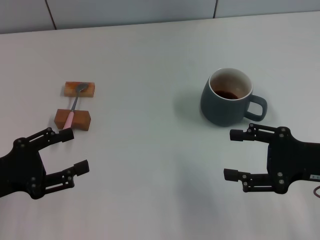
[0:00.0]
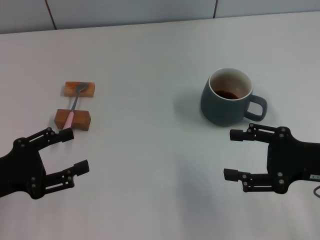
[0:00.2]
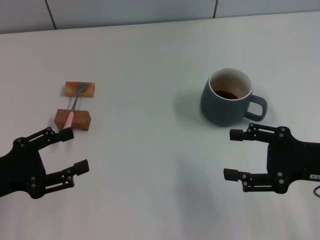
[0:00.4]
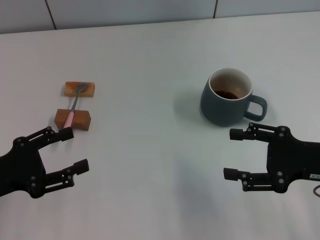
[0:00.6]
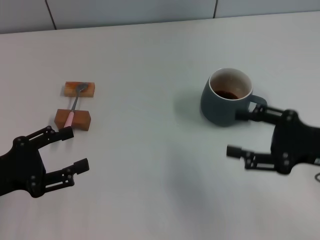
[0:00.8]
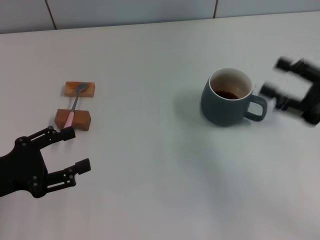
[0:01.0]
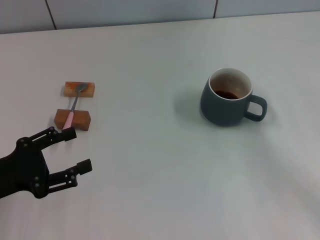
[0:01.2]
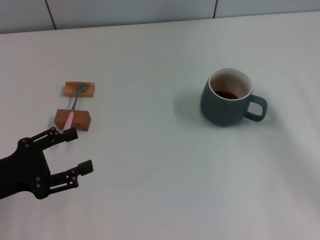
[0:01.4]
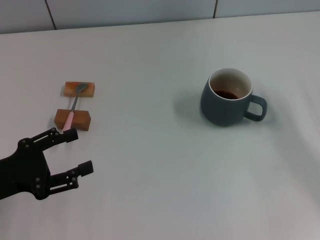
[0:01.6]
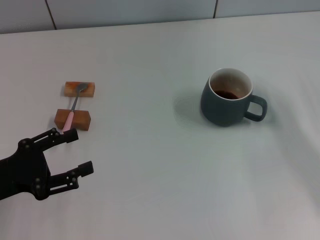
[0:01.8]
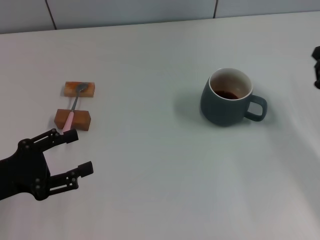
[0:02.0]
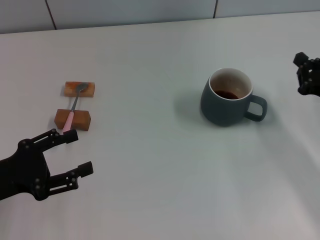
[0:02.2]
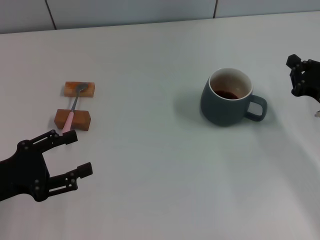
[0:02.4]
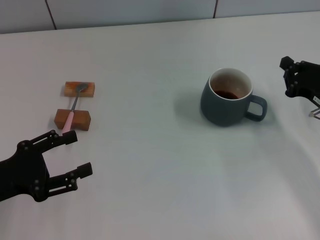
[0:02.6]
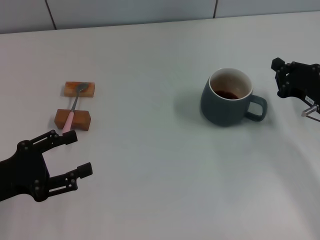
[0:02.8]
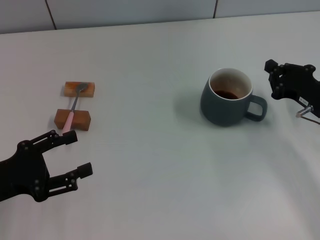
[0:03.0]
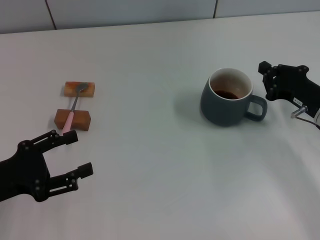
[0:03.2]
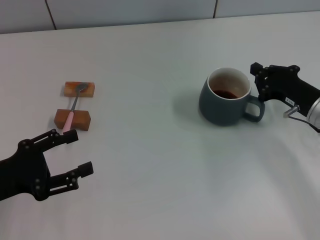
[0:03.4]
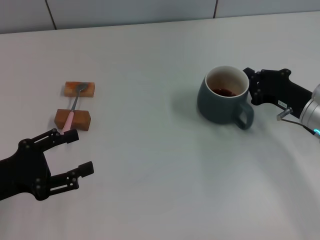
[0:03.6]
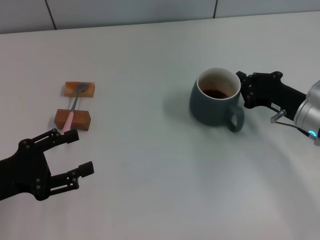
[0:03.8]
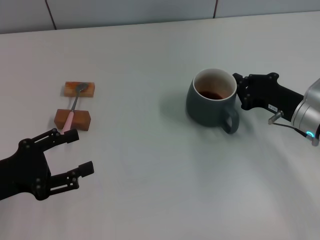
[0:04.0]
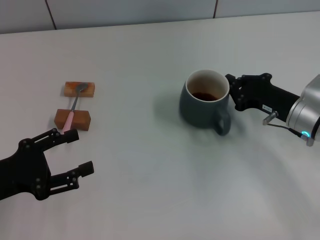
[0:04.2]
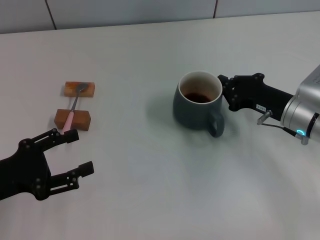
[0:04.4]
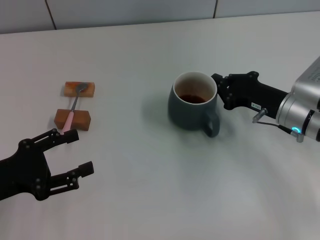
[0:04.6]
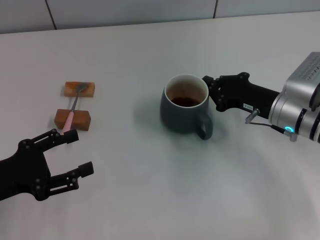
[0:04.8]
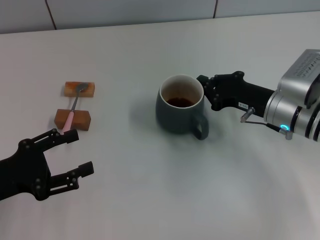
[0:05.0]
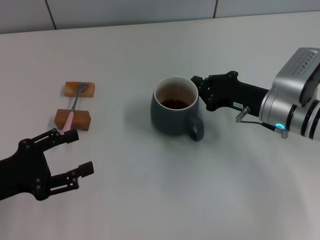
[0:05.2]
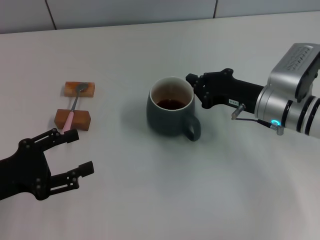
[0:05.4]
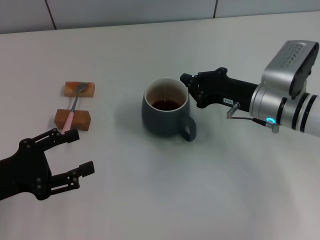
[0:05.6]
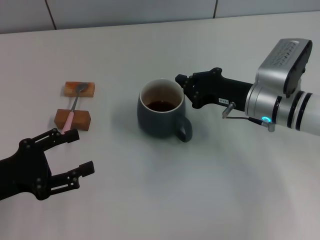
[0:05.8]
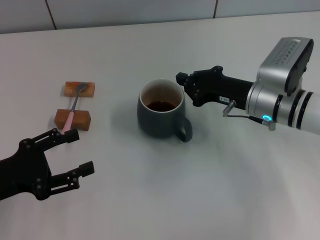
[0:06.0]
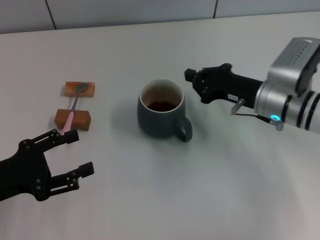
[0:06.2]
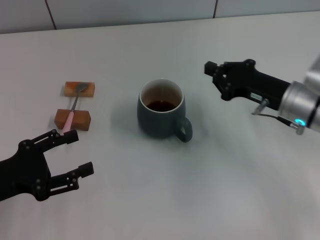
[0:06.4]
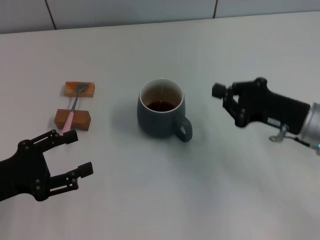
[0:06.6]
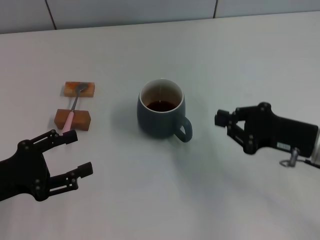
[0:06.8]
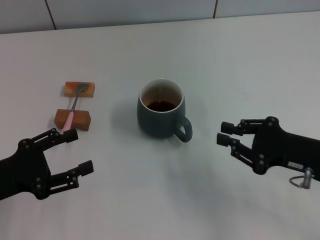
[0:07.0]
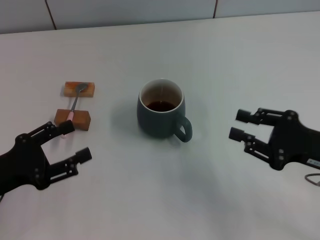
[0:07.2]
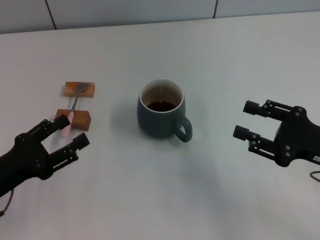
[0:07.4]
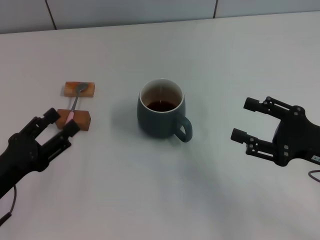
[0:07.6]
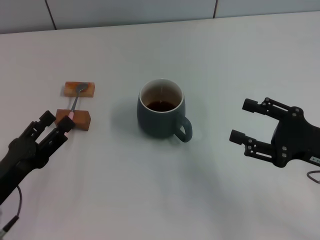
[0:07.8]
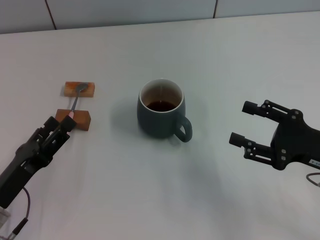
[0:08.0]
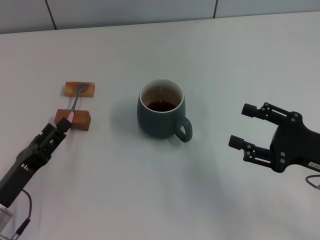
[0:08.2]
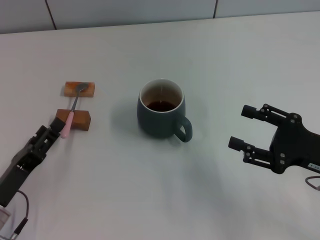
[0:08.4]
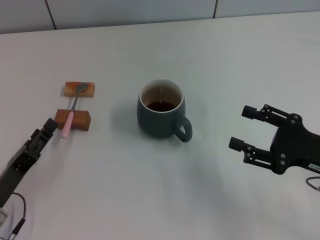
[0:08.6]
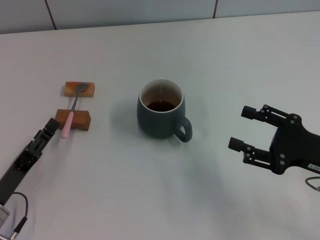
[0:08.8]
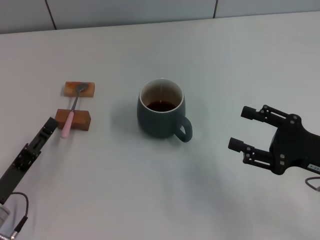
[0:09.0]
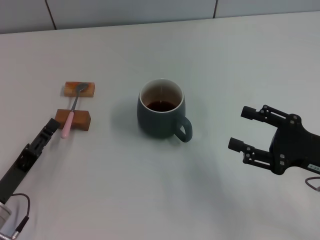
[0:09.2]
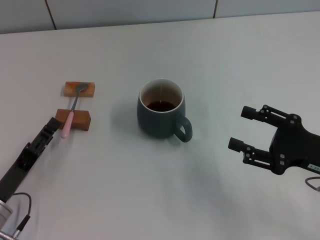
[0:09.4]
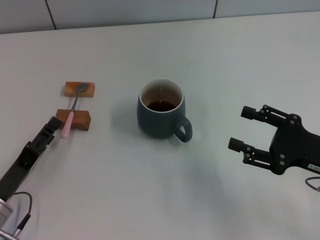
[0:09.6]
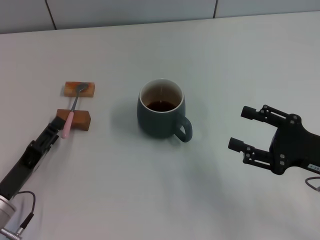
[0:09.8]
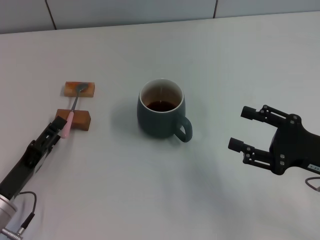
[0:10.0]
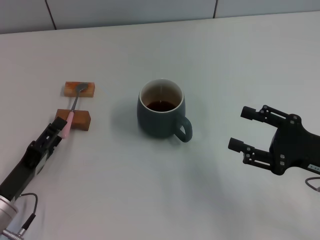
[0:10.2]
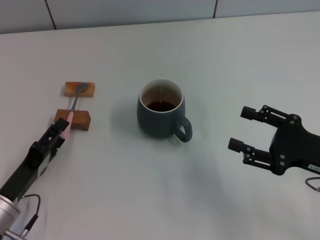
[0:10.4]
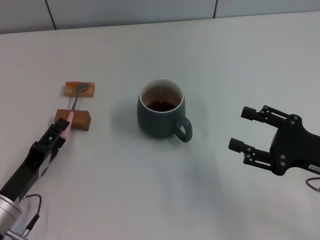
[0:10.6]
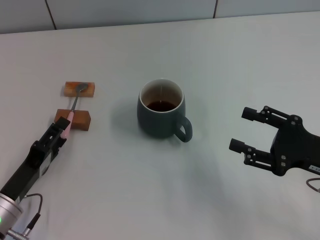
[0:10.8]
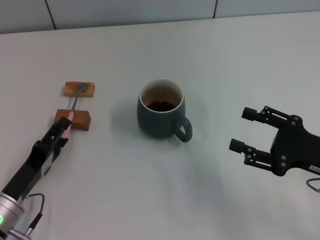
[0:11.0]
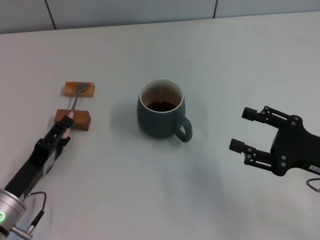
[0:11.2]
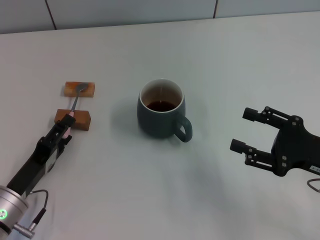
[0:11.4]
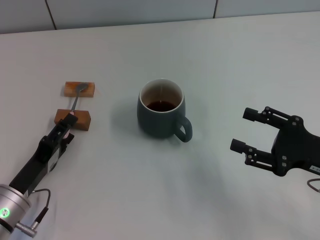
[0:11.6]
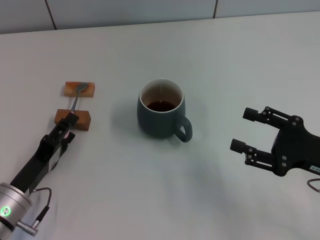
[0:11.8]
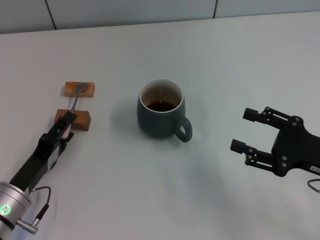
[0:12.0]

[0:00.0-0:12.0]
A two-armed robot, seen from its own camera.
Task of the whole recording: Move the grey cup to the center, lift the pink spoon, stir it three times in the cup, and put the spoon into the cup.
Step, 0:00.0 to 0:06.2: Move the cup with coffee to the center of view with the right gripper.
0:00.0 to 0:01.6: The right gripper travels to the right by some 10 cm.
0:01.6 to 0:03.0: The right gripper heads to the left, covering about 5 cm, and closes.
0:03.0 to 0:04.4: The right gripper shifts about 5 cm to the left.
0:04.4 to 0:06.0: The right gripper heads to the left, covering approximately 5 cm.
0:06.0 to 0:07.6: The right gripper goes about 15 cm backward and to the right, and opens up.
0:09.0 to 0:12.0: The grippers move only a little.

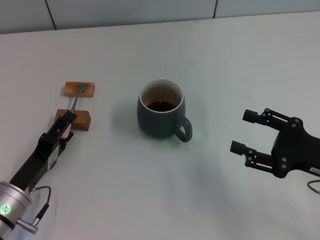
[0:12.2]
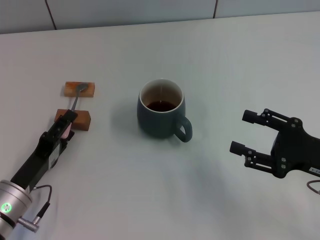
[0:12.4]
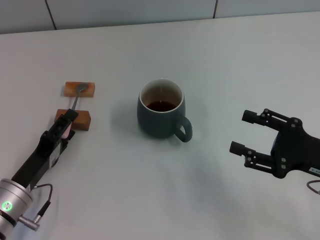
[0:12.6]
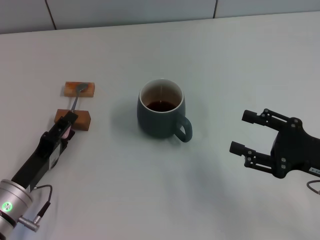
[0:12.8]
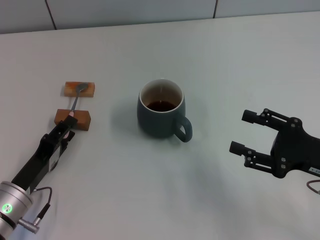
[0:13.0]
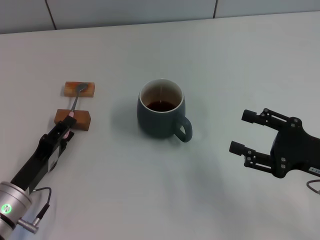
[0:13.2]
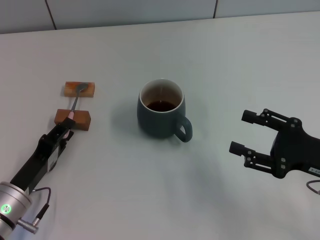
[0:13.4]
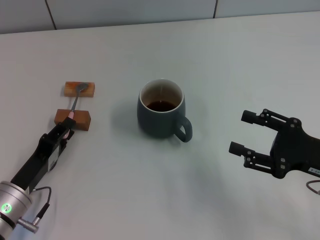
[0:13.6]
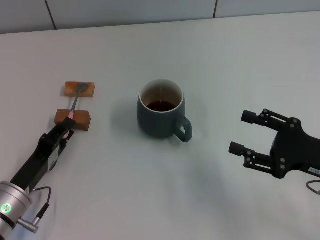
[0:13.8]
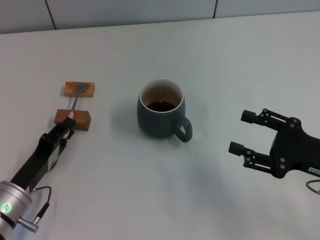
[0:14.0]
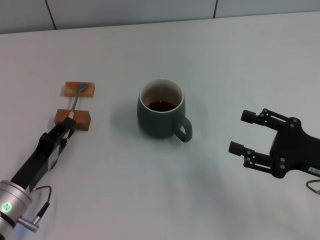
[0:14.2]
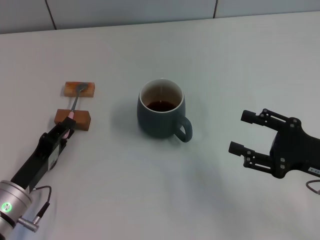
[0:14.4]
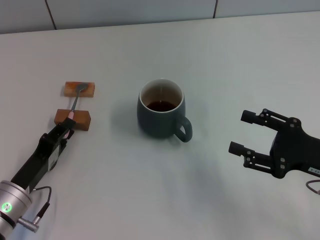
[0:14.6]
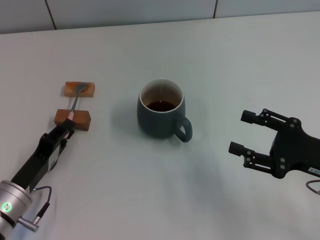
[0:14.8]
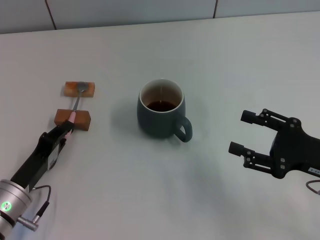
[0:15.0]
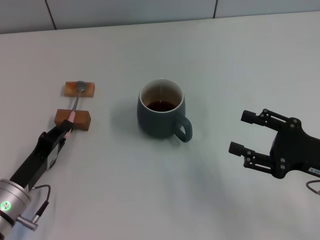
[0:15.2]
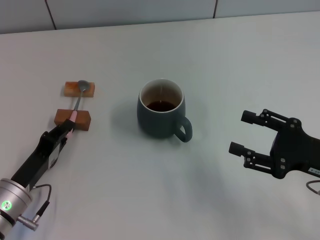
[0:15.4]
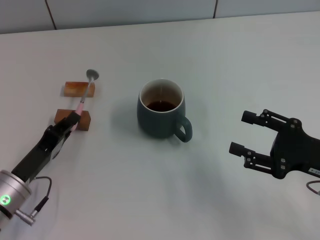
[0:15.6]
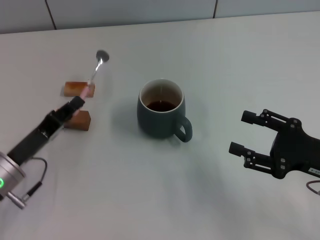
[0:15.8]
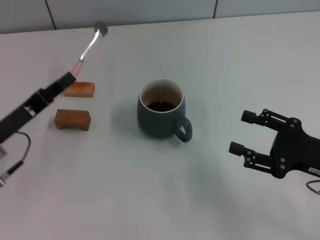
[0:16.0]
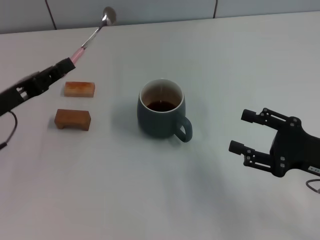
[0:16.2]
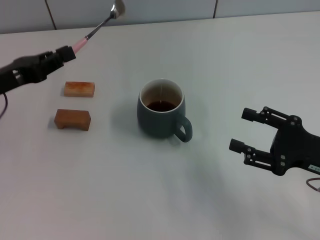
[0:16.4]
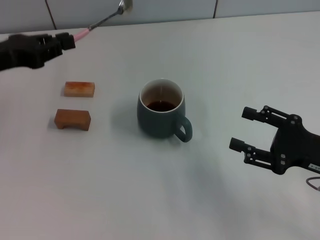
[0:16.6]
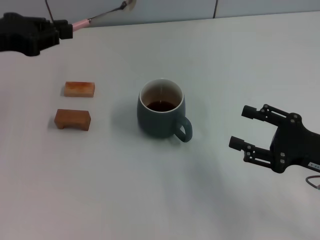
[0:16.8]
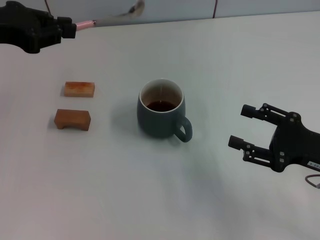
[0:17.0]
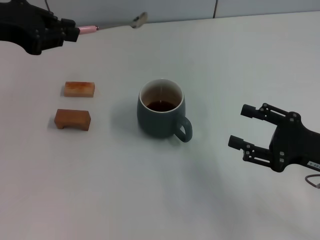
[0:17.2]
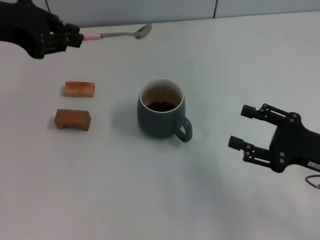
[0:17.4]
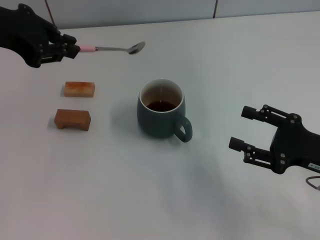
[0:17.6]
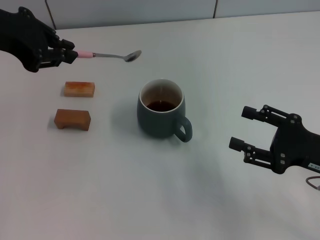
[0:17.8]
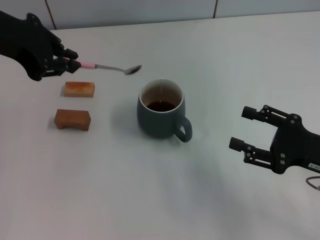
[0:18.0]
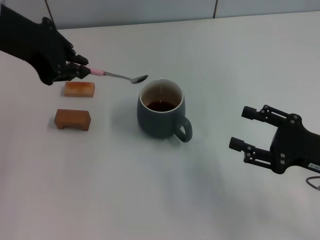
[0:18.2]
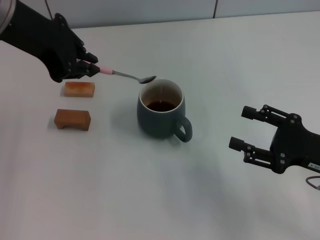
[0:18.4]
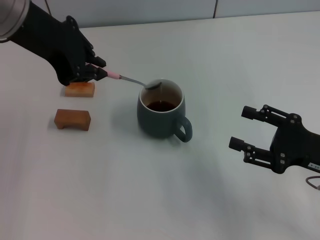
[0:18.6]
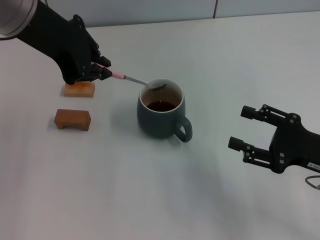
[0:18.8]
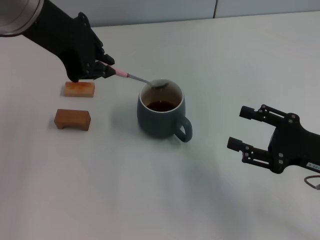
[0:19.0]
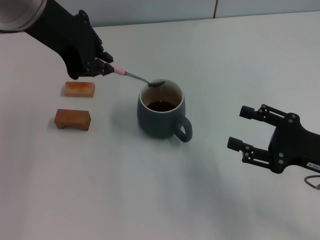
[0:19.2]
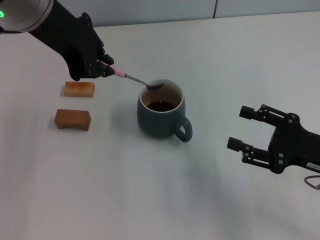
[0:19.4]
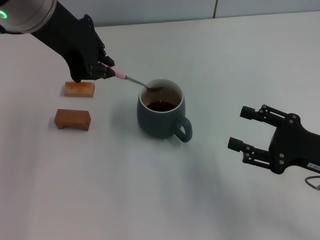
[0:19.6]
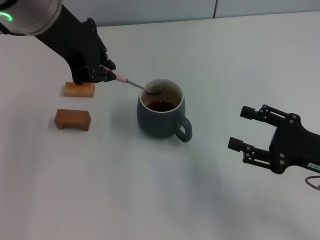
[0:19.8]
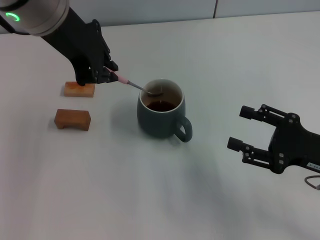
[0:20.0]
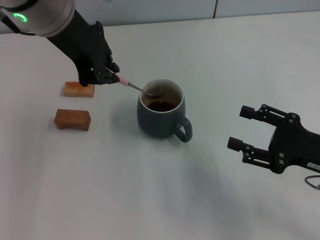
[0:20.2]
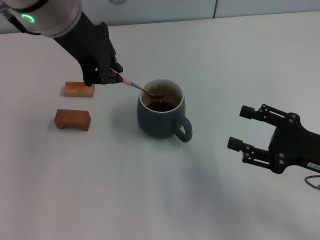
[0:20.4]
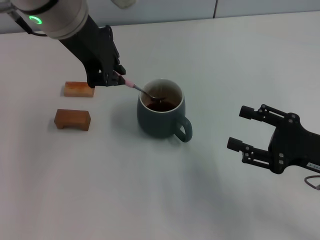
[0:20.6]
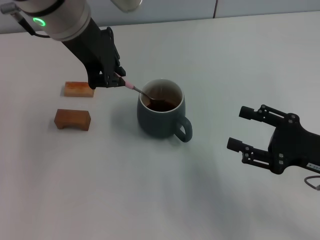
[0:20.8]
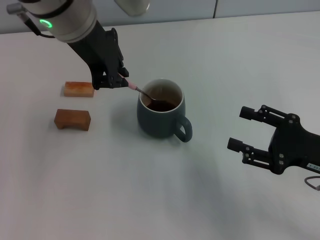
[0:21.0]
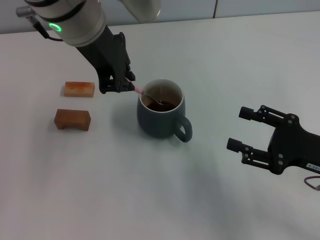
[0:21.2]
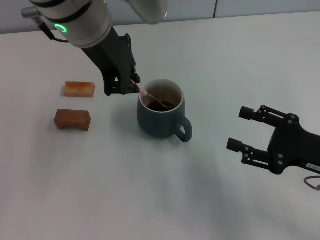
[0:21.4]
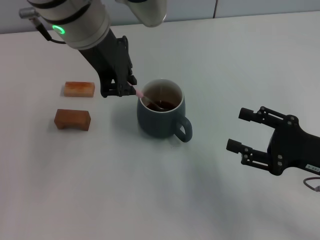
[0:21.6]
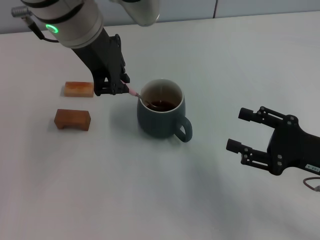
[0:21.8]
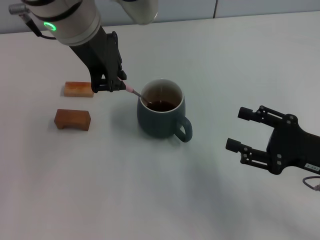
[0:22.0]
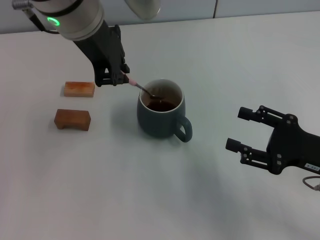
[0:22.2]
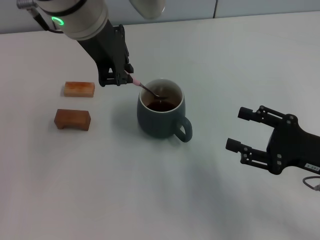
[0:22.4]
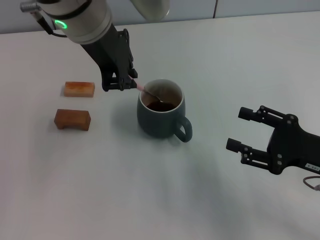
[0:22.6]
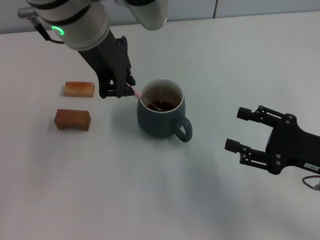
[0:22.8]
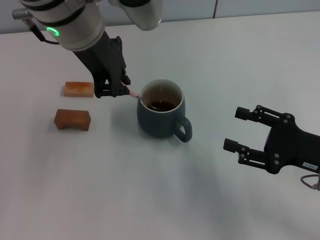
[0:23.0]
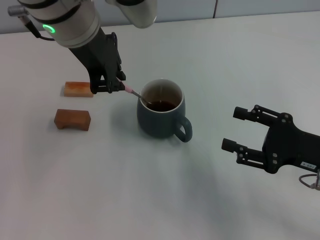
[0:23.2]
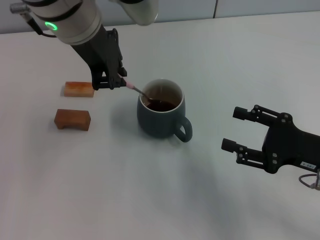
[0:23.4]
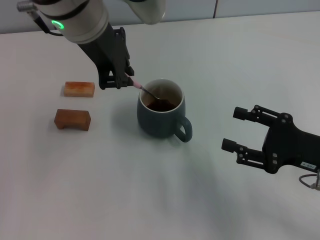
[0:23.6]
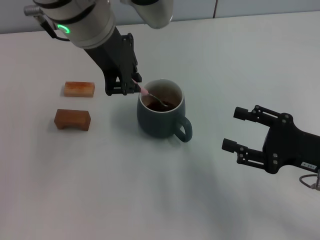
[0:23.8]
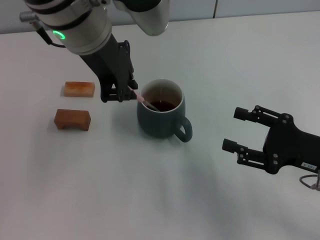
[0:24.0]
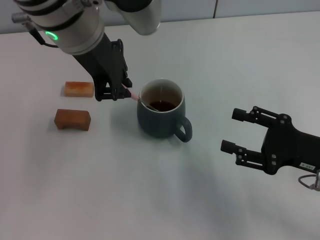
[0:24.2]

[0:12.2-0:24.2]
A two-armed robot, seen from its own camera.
Task of the whole recording: Move the grey cup to the center, lift the pink spoon, stir it three times in the cup, and put the spoon into the cup.
Step, 0:12.2 to 0:15.6: Pick up the spoon with the left gripper.
0:12.2 to 0:13.8: The left gripper closes up.
0:13.8 to 0:15.2: Both grippers stay about where they are.
0:15.2 to 0:16.6: The left gripper shifts roughly 20 cm upward and forward.
0:16.6 to 0:18.2: The left gripper is displaced upward and to the right by some 15 cm.
0:18.2 to 0:19.8: The left gripper goes about 10 cm to the right.
0:19.8 to 0:21.2: The left gripper changes place by approximately 5 cm.
0:21.2 to 0:22.6: Both grippers stay about where they are.
0:22.6 to 0:24.2: Both grippers stay put.
